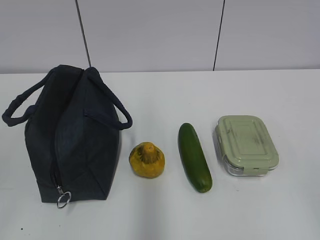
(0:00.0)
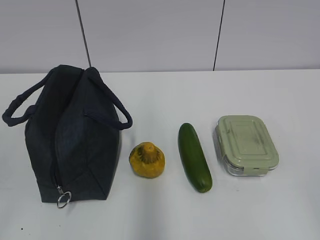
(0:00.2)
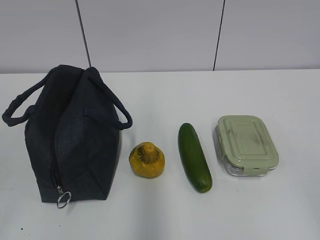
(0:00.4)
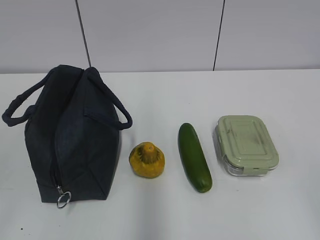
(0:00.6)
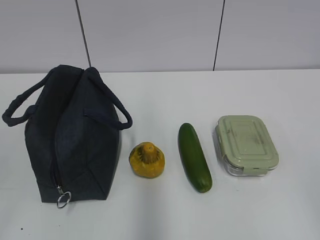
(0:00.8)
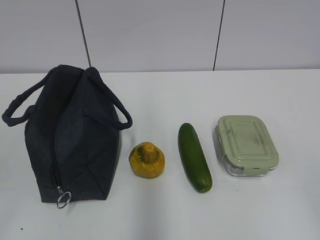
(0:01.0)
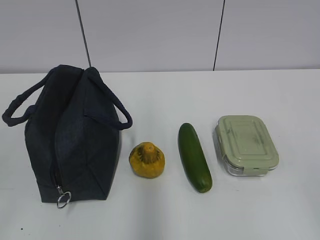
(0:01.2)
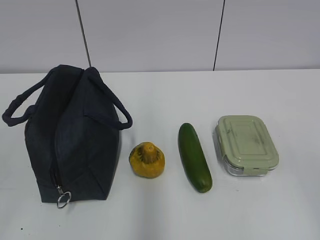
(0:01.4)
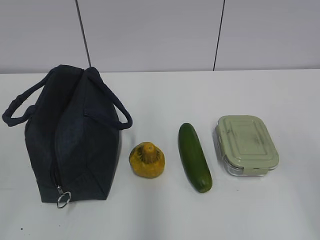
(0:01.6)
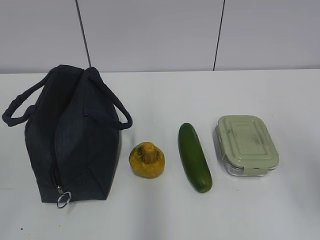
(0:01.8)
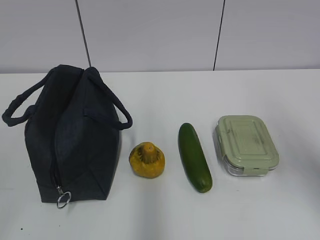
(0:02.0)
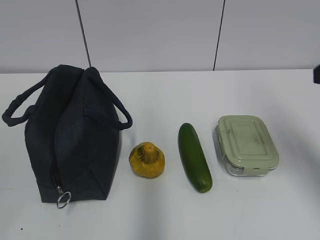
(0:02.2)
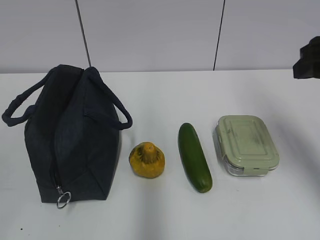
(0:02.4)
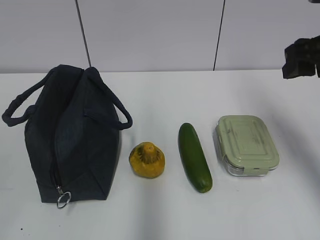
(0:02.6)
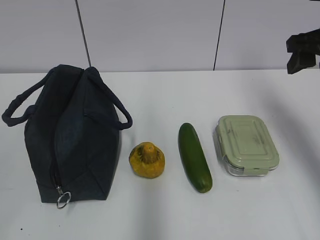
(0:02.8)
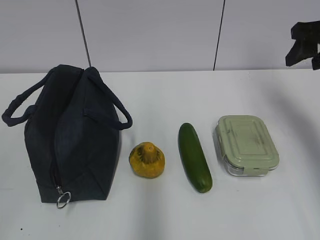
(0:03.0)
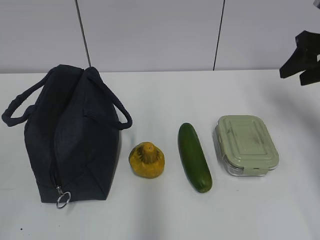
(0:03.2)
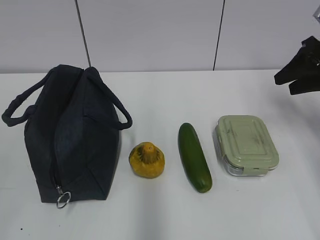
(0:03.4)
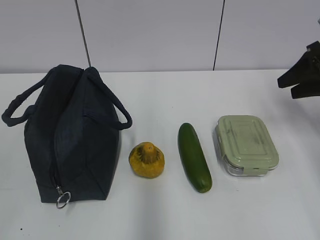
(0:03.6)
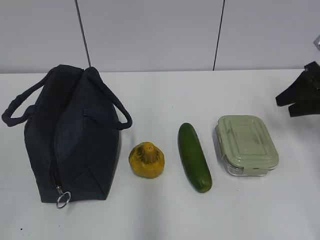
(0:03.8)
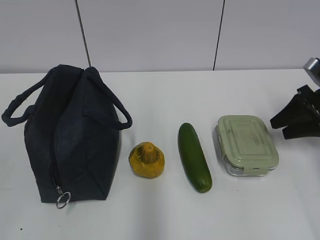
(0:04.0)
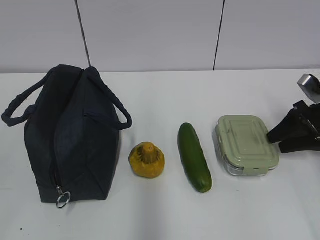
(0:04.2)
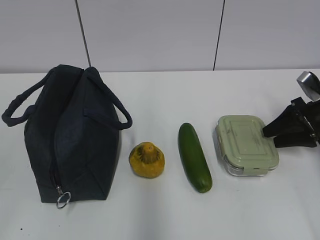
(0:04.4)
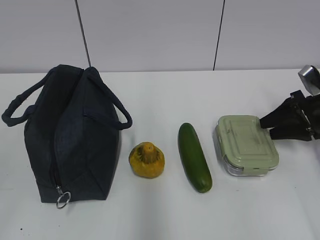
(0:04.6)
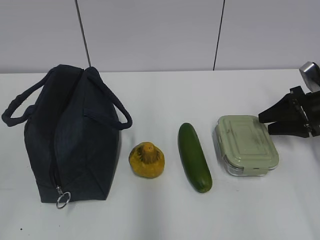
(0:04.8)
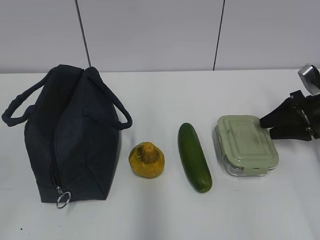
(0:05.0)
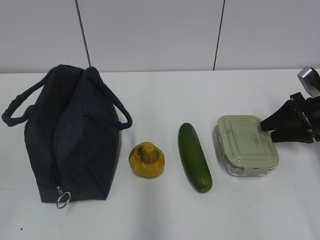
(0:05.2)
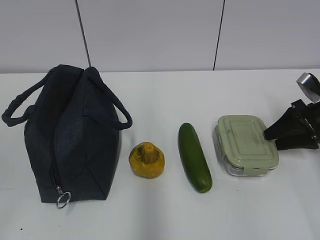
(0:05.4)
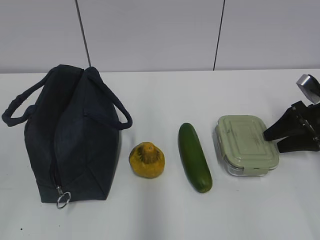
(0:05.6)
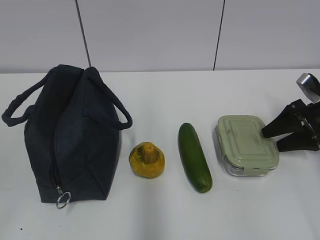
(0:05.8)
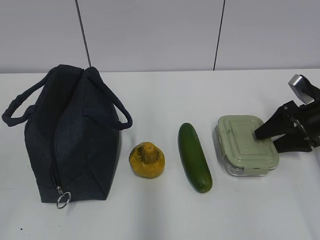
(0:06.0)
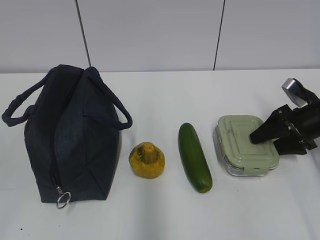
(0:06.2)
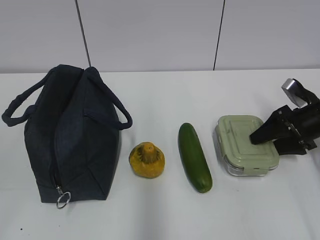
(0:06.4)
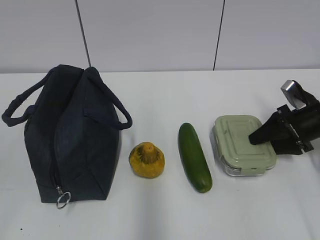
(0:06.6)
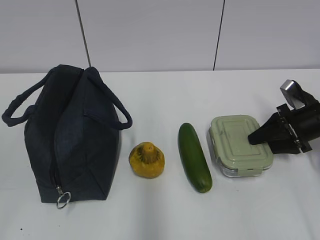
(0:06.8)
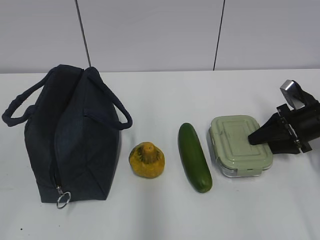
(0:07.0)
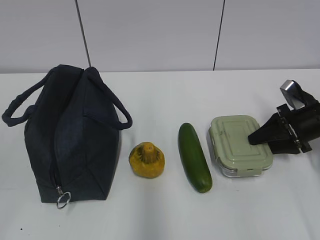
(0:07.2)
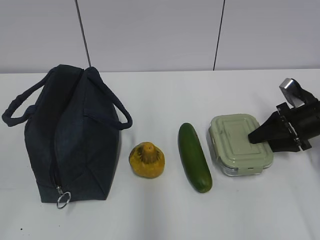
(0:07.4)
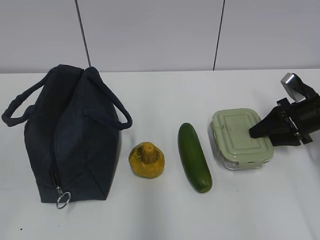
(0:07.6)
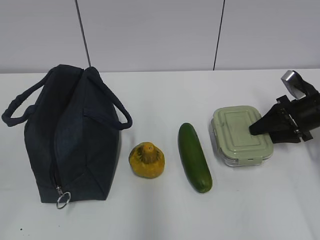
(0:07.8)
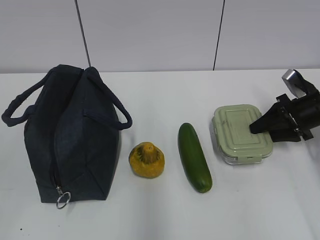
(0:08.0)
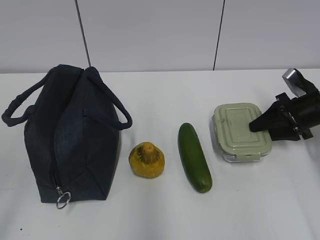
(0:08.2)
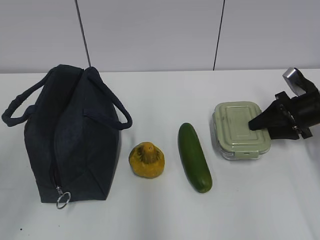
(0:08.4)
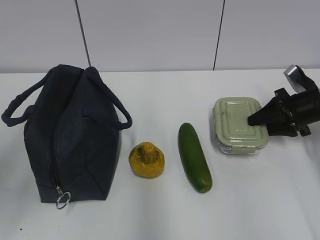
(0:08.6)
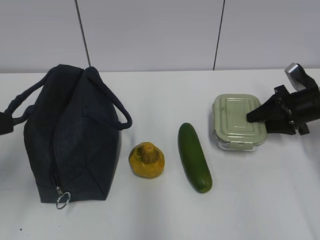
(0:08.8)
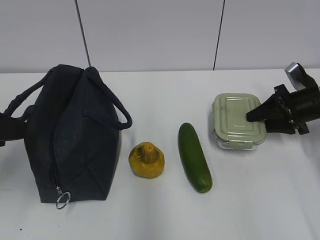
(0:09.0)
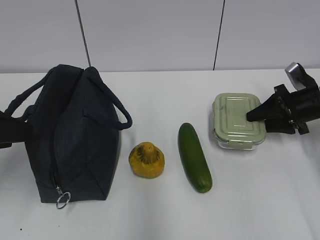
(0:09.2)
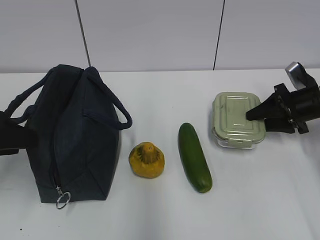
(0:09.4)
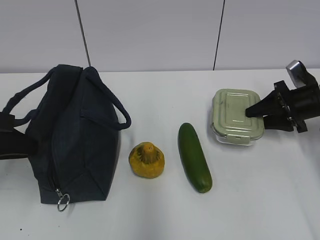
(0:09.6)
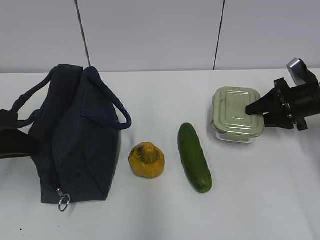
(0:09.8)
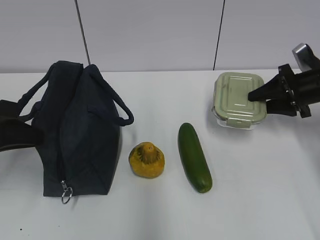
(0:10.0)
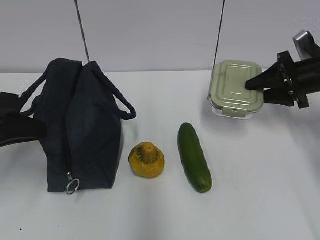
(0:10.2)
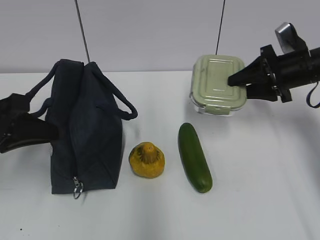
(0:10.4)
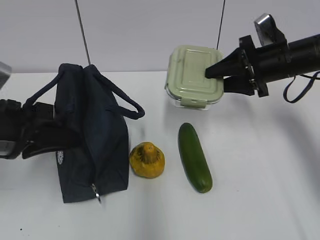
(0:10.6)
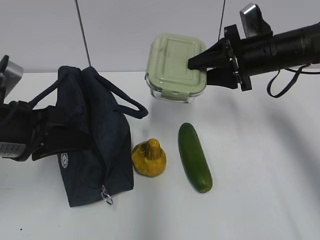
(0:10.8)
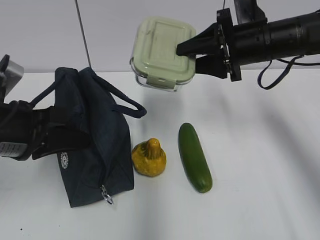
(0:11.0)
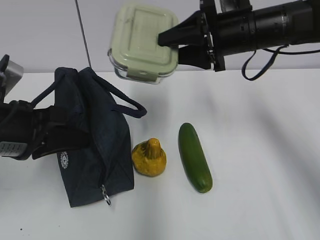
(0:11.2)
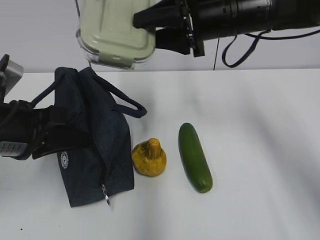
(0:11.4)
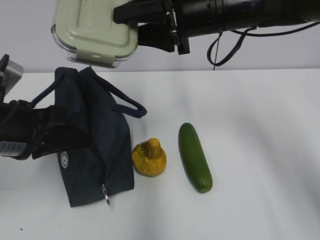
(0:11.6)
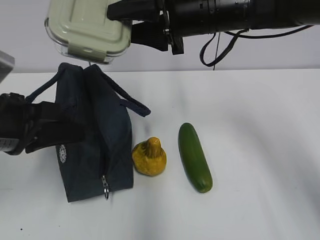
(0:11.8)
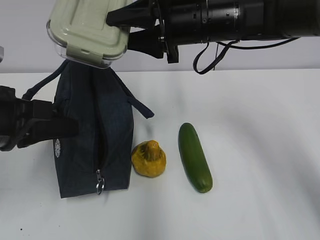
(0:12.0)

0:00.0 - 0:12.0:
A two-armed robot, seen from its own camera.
Step, 0:00.0 - 0:07.0: Grab the lunch box with your right hand.
0:01.6 - 0:03.0: The right gripper heads forward, covering approximately 30 cm.
0:03.0 - 0:04.4: The right gripper moves downward, roughly 15 cm.
0:04.4 - 0:07.6: There are only small adjustments of the grippers.
0:07.6 - 0:09.0: The left gripper is displaced forward by approximately 20 cm.
0:09.0 - 0:10.4: The right gripper moves upward and to the left, some 10 cm. The left gripper changes place by approximately 5 cm, and closes.
0:10.4 - 0:12.0: The right gripper shifts some 20 cm to the left and upward.

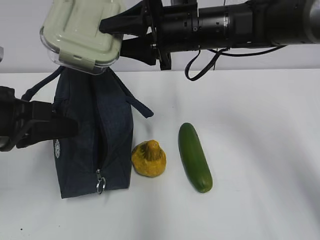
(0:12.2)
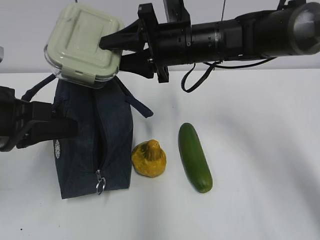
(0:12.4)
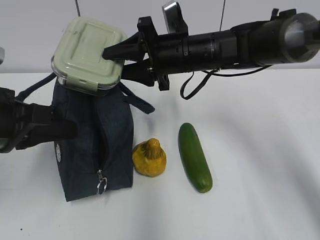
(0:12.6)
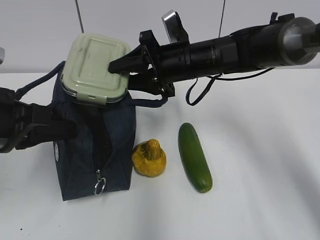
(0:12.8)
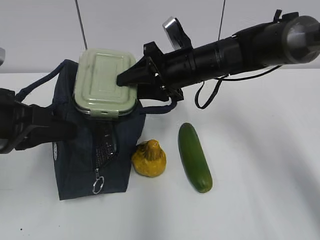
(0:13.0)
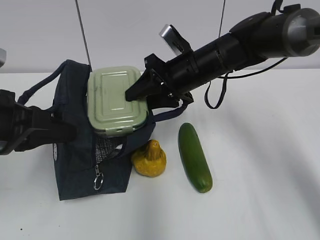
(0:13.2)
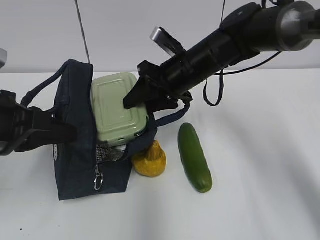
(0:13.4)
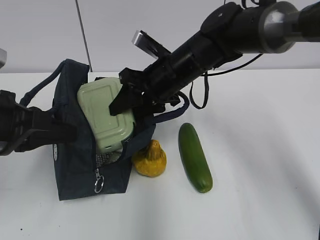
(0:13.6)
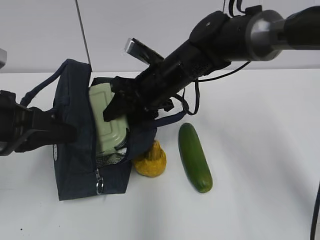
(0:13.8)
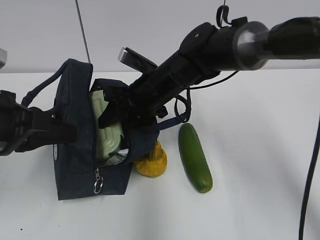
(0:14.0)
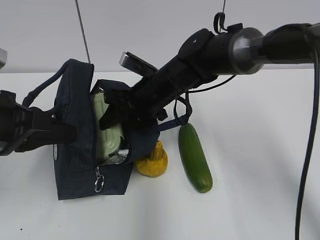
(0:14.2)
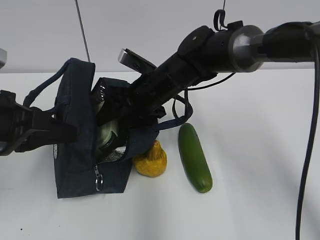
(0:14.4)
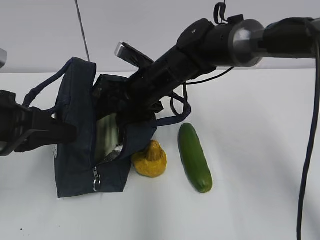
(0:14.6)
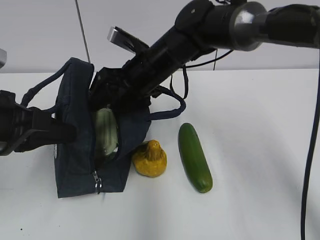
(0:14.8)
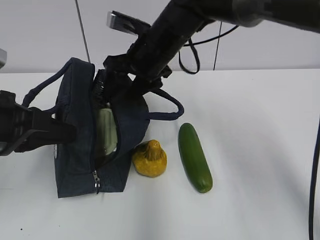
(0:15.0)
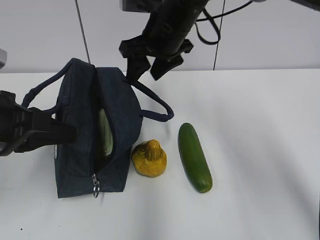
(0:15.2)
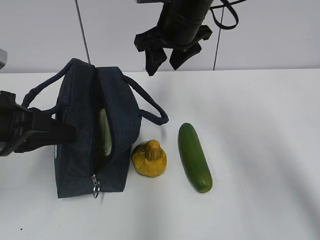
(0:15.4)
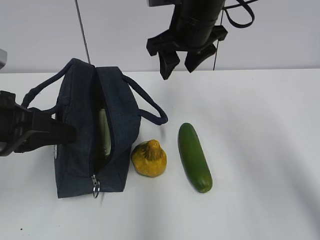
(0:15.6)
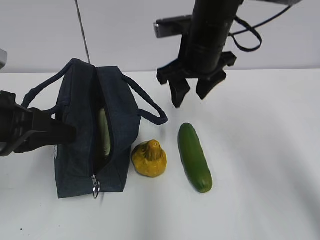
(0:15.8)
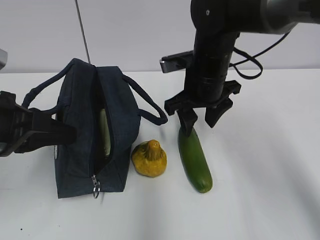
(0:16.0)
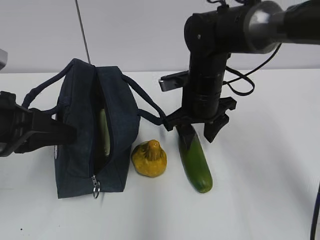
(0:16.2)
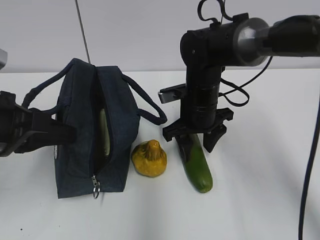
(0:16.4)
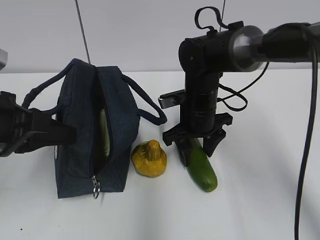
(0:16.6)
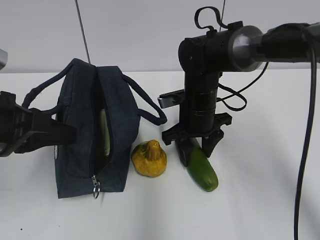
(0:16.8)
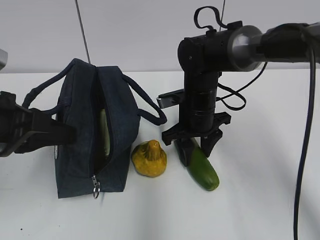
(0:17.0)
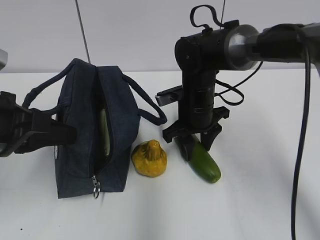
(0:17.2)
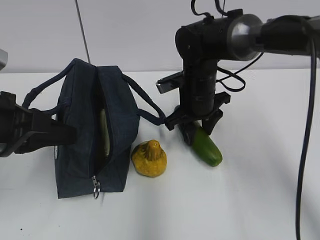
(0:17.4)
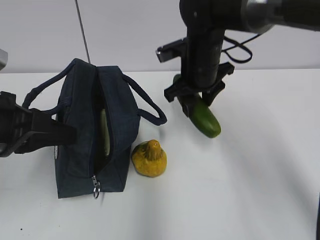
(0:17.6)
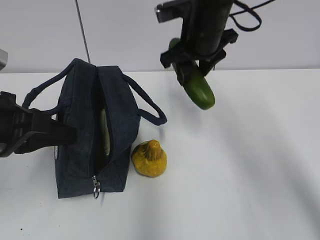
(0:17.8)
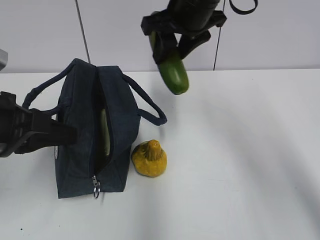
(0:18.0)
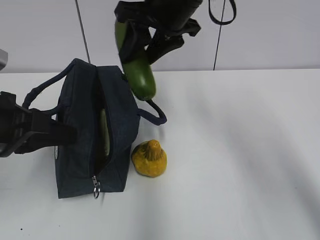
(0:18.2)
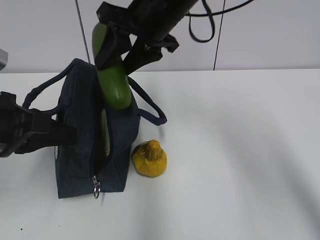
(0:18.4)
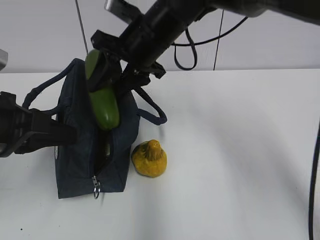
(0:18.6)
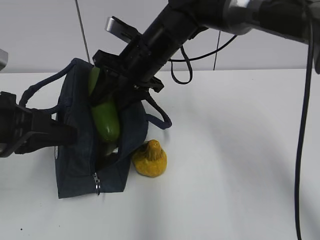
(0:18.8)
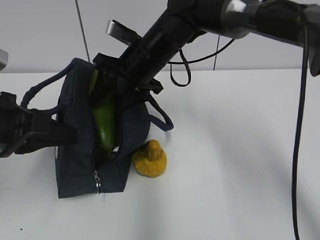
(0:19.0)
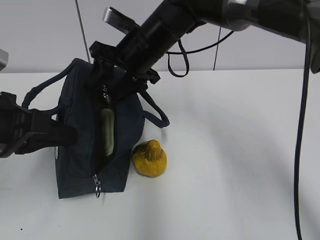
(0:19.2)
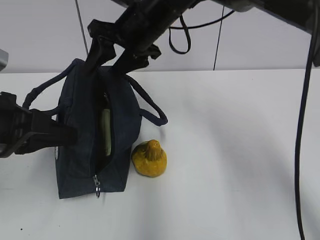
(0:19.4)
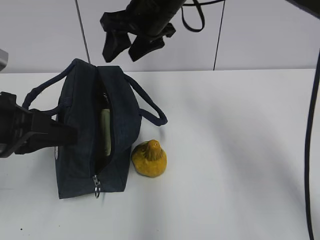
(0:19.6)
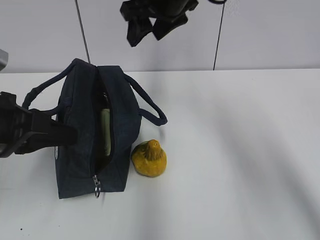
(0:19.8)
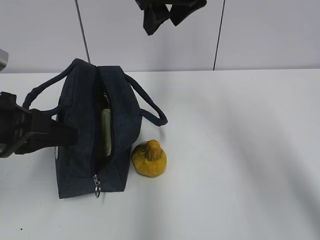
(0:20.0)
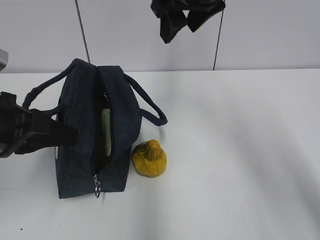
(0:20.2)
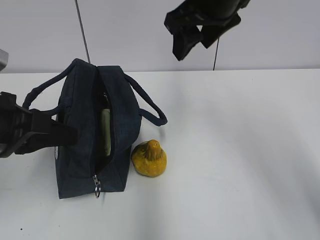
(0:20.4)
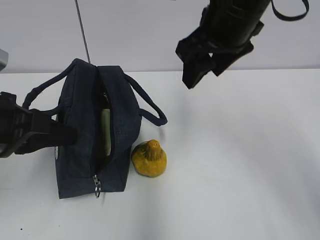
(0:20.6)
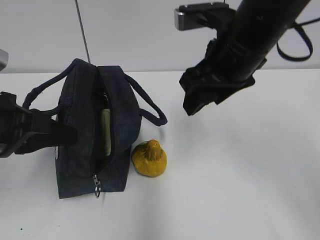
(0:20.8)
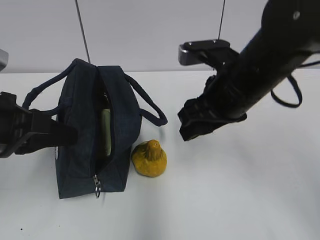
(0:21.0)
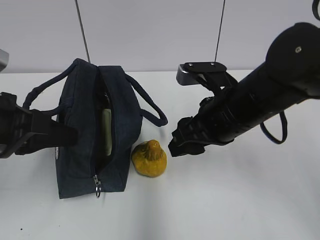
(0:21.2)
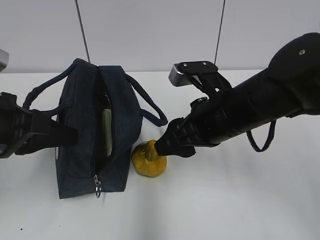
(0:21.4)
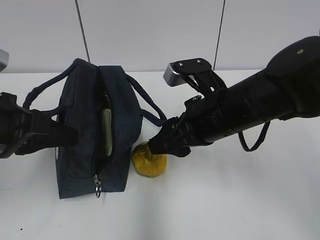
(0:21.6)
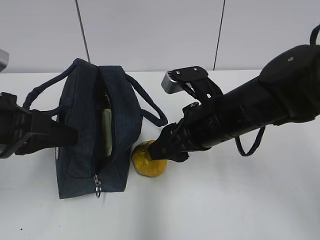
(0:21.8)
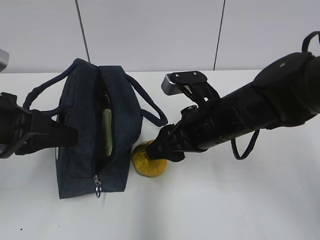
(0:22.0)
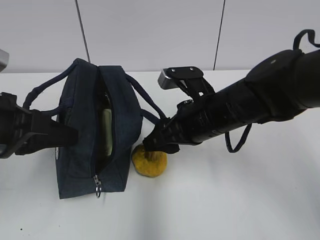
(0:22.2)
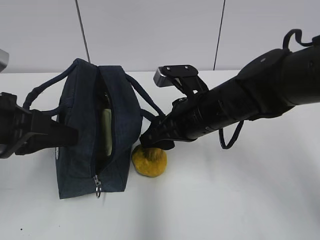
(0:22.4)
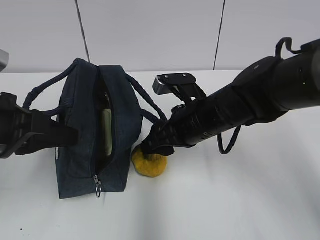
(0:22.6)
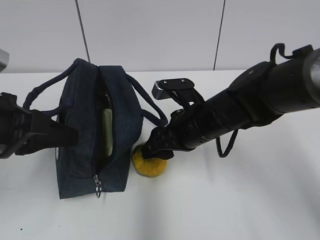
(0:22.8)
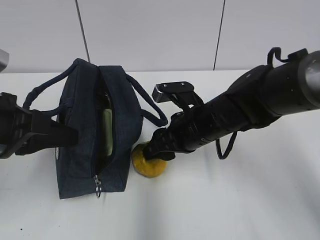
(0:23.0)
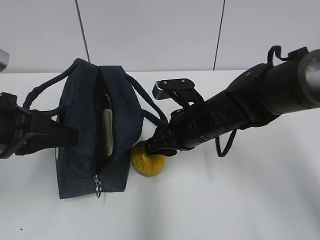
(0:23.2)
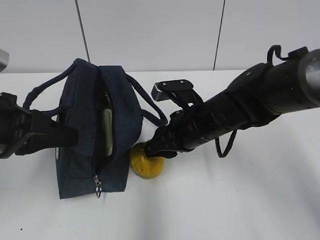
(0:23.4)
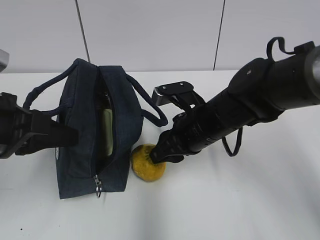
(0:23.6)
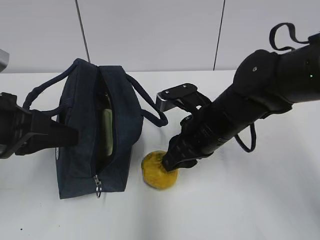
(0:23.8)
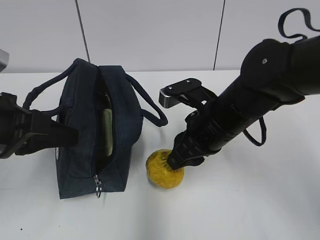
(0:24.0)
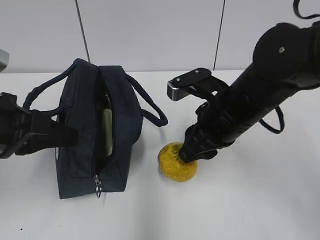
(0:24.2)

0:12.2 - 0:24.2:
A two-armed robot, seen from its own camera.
Step, 0:13.4 - 0:15.2: Place it into the bag with your right hand.
Step, 0:15.4 - 0:17.0: Grab the cucumber with your right hand.
Step, 0:17.2 - 0:19.2: Place it into the bag with your right hand.
Step, 0:19.6 - 0:23.2: Grab the pear with your right hand.
0:12.2 - 0:13.8: The right gripper is displaced downward by about 10 cm.
0:13.8 - 0:15.2: The right gripper heads upward, covering approximately 10 cm.
0:15.2 - 0:16.6: The right gripper moves downward, about 15 cm.
0:16.6 - 0:18.2: The right gripper shifts roughly 20 cm upward.
0:18.2 - 0:19.8: The right gripper goes downward and returns, about 10 cm each way.
0:19.8 - 0:21.2: The right gripper moves backward, downward and to the right, about 20 cm.
0:21.2 - 0:22.6: The right gripper changes place by about 5 cm.
0:22.6 - 0:24.2: The right gripper shifts by roughly 5 cm, and closes up.
